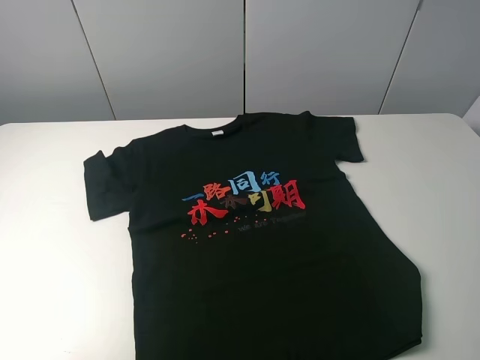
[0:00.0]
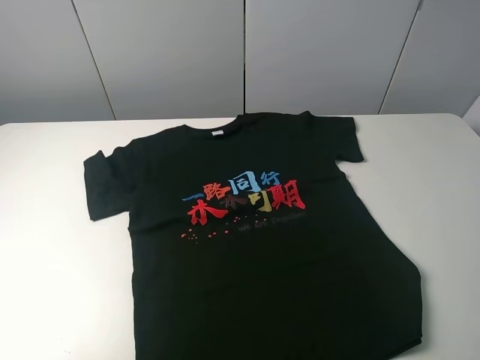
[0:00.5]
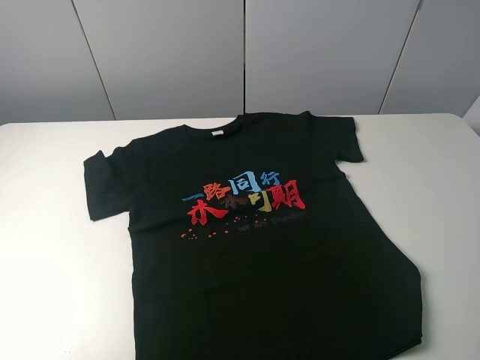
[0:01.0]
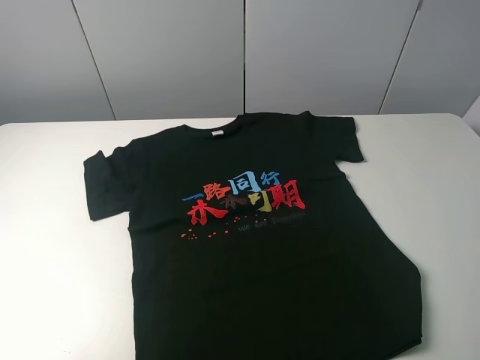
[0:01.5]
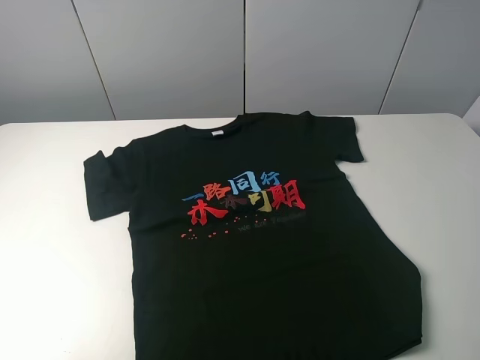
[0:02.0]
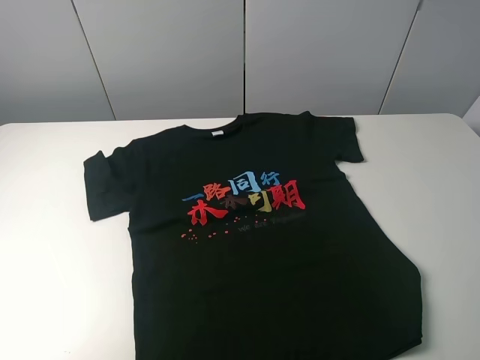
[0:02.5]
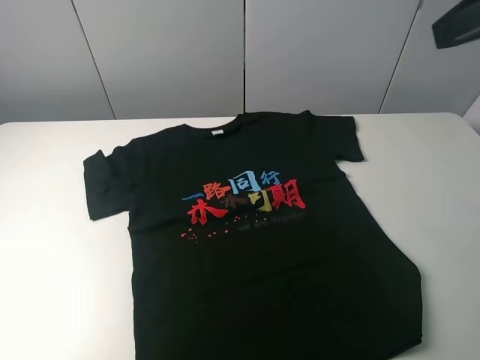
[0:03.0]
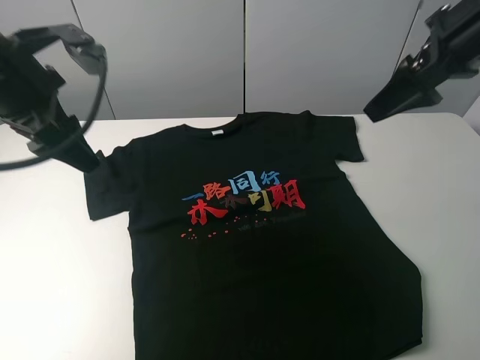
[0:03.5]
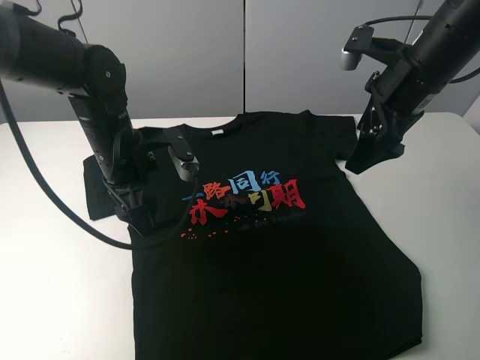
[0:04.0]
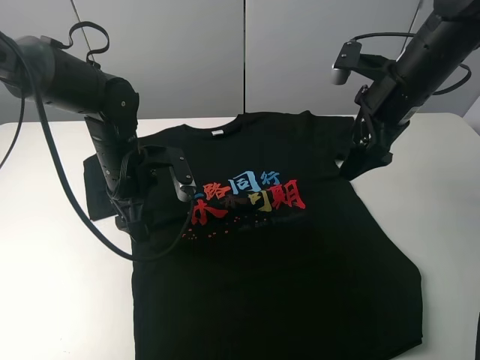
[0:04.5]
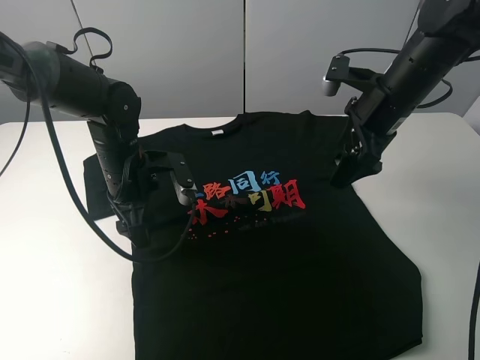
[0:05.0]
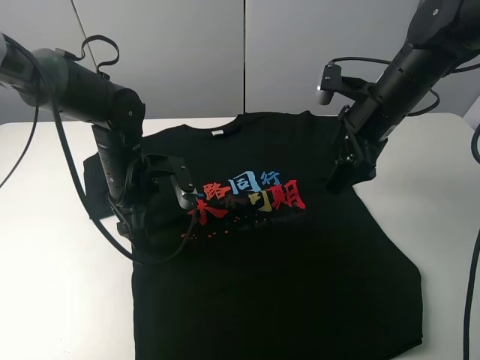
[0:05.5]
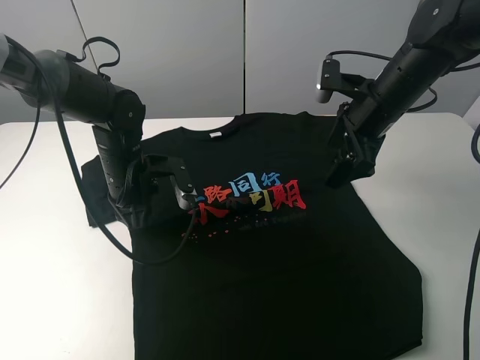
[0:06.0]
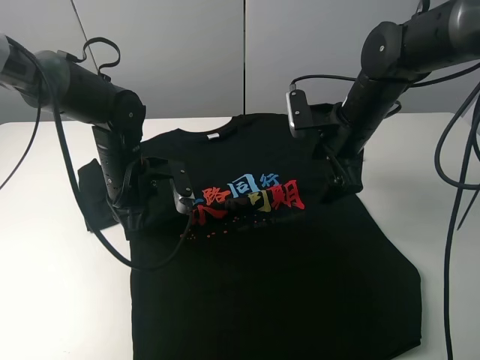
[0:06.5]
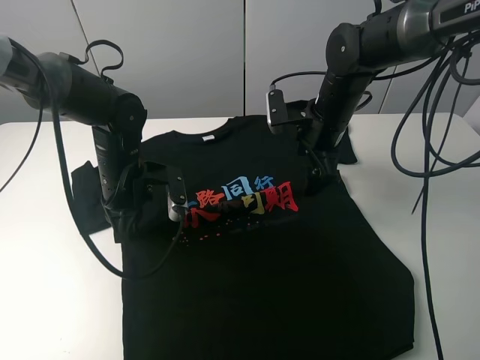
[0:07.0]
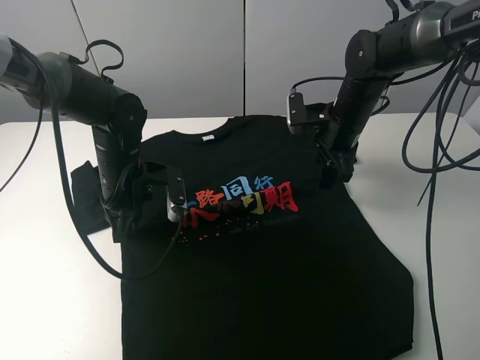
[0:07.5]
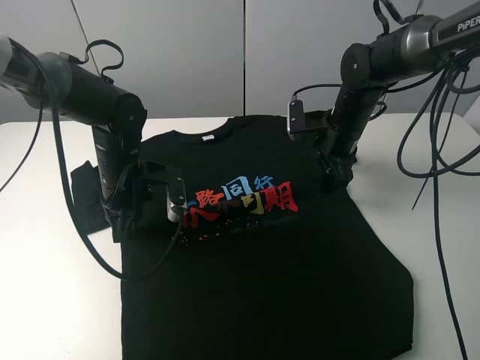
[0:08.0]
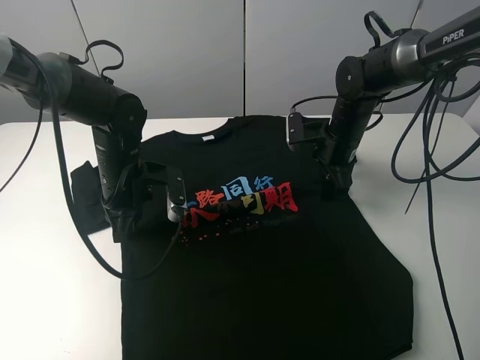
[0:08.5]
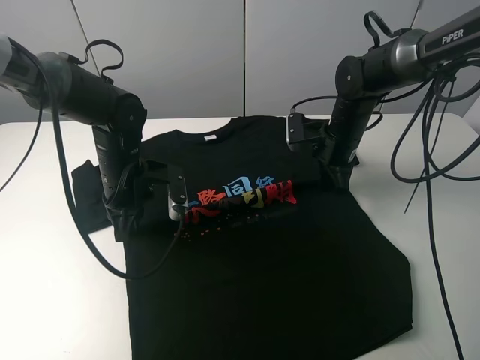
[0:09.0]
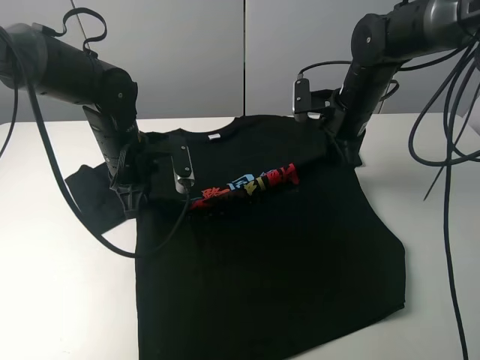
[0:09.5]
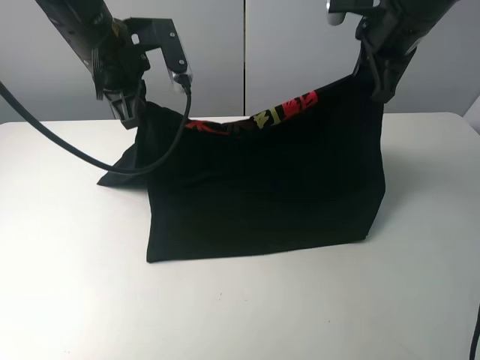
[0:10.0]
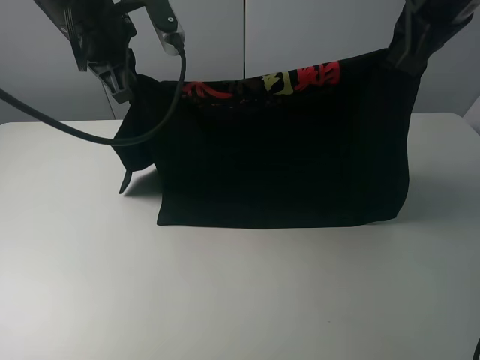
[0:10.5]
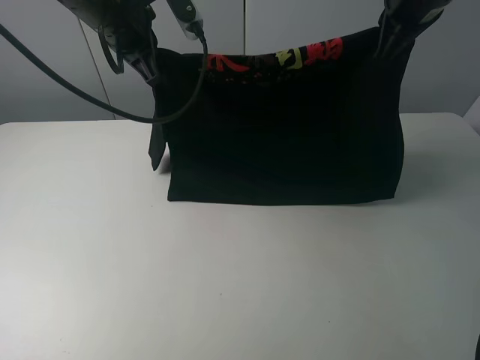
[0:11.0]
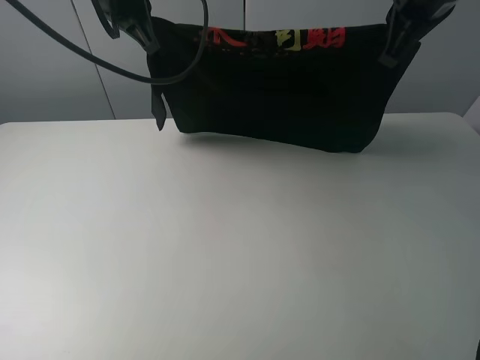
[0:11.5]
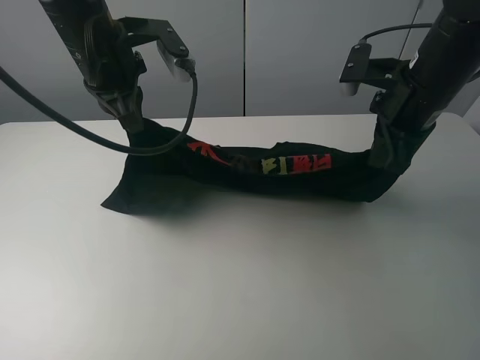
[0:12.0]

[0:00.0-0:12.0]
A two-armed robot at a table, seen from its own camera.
Task of the whole recording: fold the clothes on the table.
Step, 0:00.0 to 0:08.5: Lift the black T-shirt with the left gripper.
0:00.0 to 0:02.0: The two grippers keep their place.
0:02.0 to 0:04.0: The right gripper travels forward by approximately 30 cm. The left gripper goes some 40 cm forward, to the right and downward.
0:04.0 to 0:06.0: The right gripper moves downward, roughly 5 cm. The left gripper closes up.
0:06.0 to 0:08.0: The right gripper moves downward, about 10 cm.
0:08.0 to 0:10.0: Both grippers move upward, some 20 cm. The right gripper closes up.
0:10.0 to 0:12.0: The right gripper heads downward and backward, covering about 10 cm.

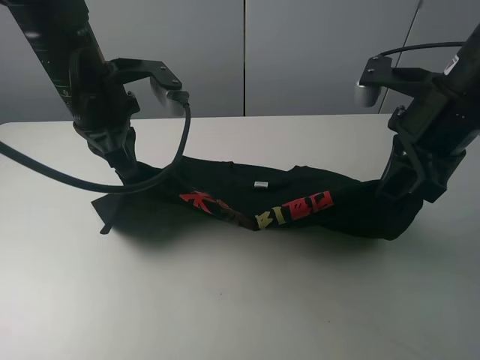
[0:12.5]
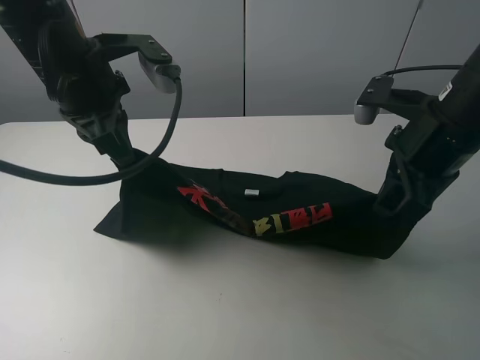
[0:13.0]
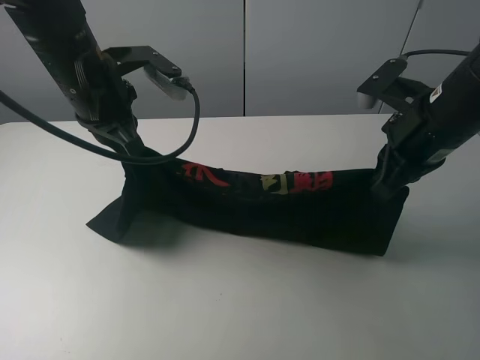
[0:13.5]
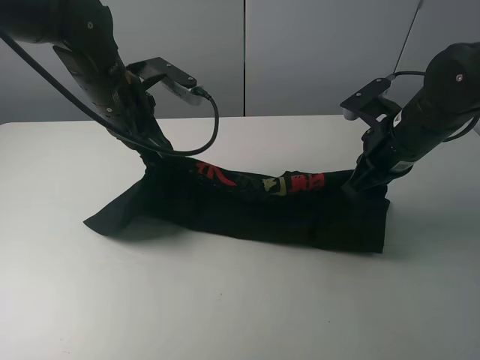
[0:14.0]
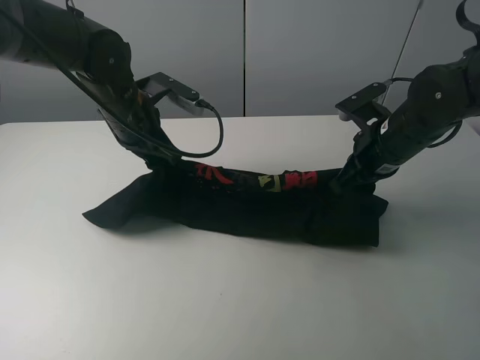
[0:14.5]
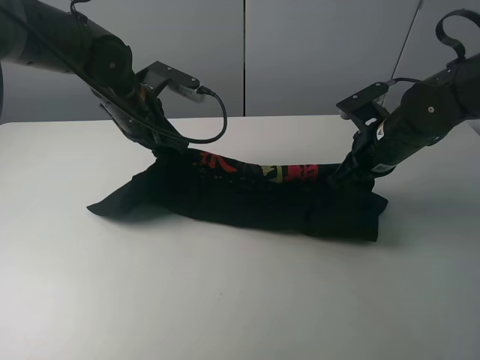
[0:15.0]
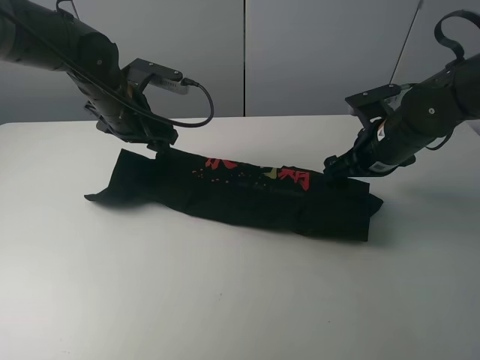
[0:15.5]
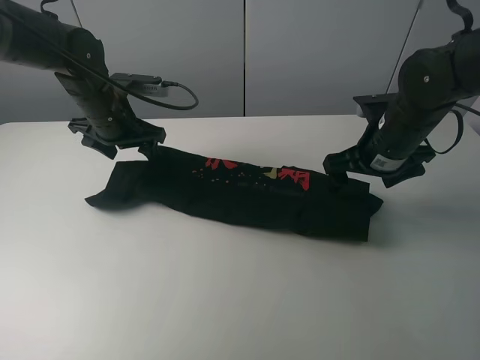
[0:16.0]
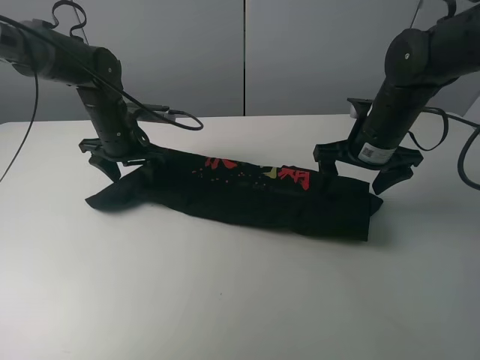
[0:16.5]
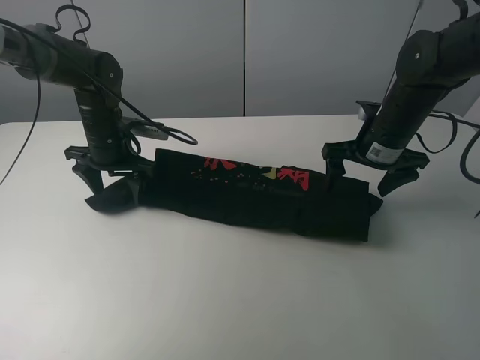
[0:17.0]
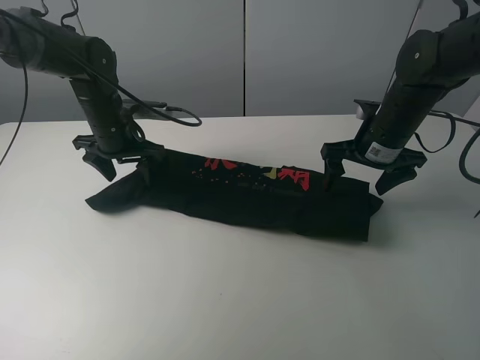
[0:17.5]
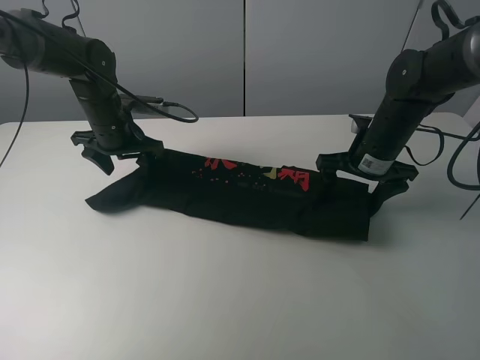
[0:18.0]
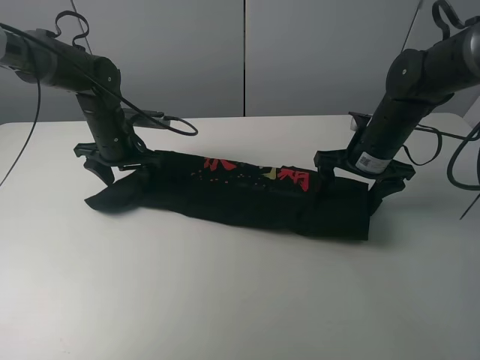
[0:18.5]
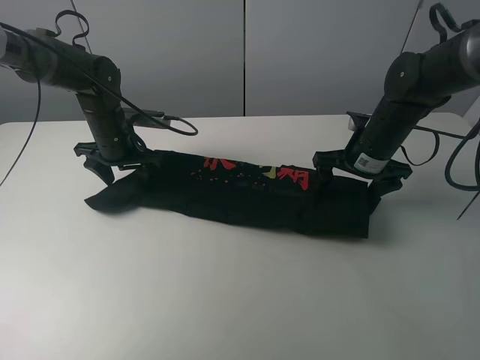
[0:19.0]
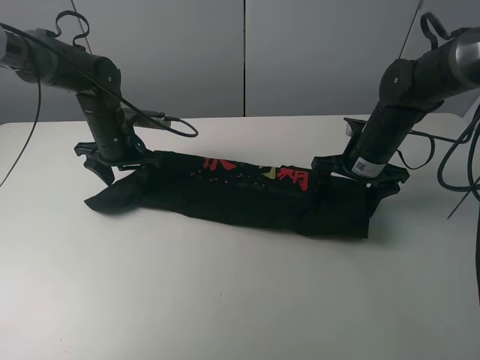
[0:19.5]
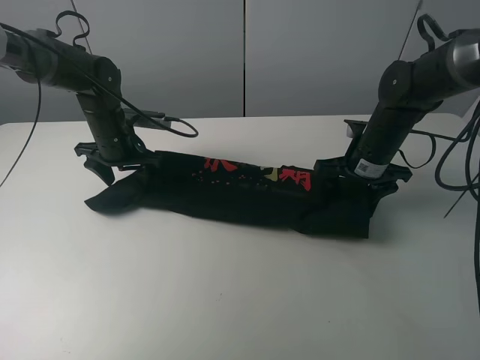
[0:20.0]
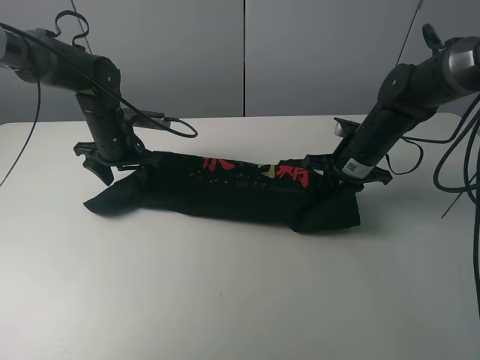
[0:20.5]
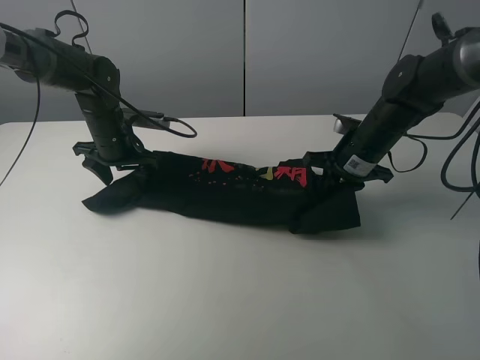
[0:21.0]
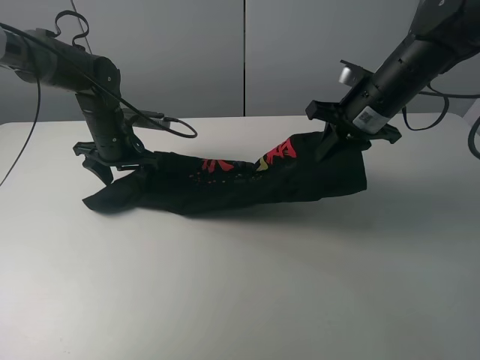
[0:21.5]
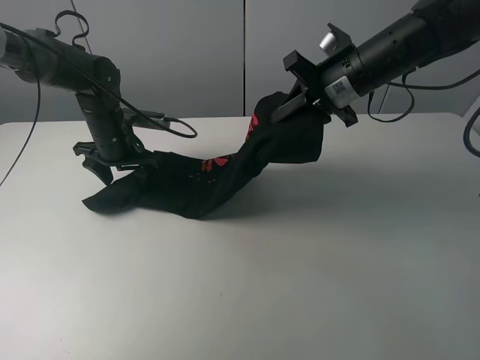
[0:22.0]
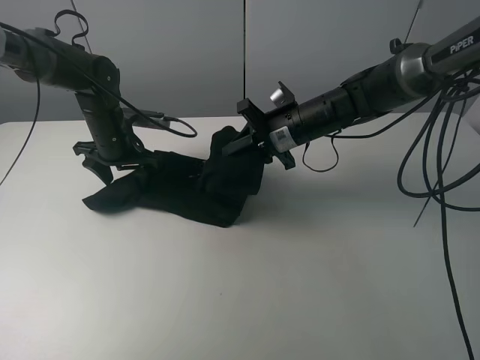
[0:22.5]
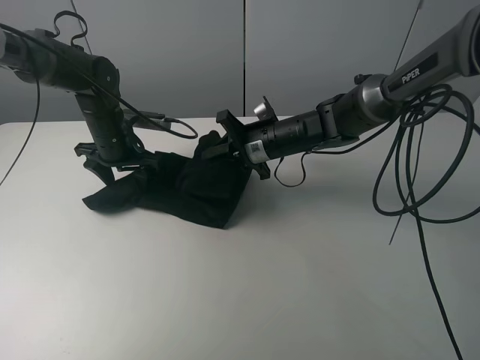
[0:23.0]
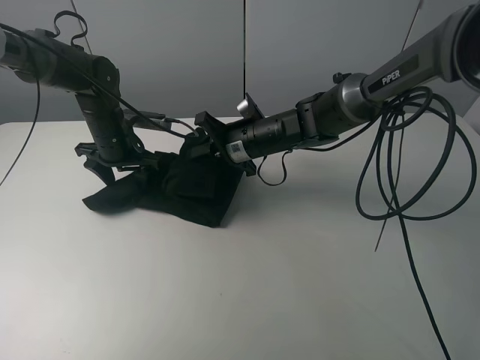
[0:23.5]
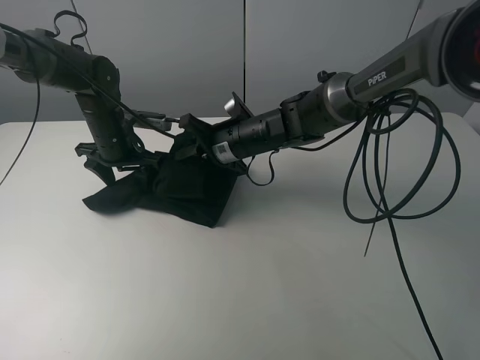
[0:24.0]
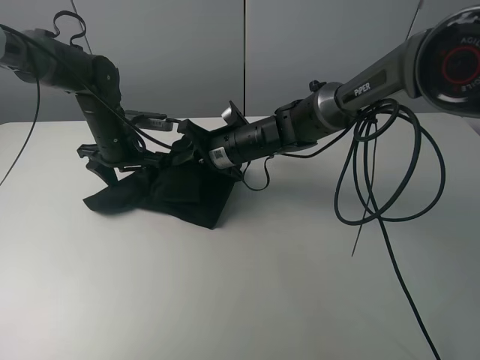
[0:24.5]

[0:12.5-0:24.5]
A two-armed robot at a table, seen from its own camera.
Task of the whole recording: fold the clothes on the table.
Step, 0:12.5 to 0:15.5: Fold the black T-shirt downward with the left gripper.
Step, 0:16.0 to 0:20.0: Grasp the black T-shirt with the right gripper.
0:12.5 to 0:14.5: Both grippers travel together downward and forward, about 10 cm.
0:14.5 to 0:16.5: The right gripper opens. The left gripper travels downward by roughly 5 cm, and opens up.
0:16.5 to 0:18.5: The grippers make only small movements.
0:18.5 to 0:20.5: The right gripper closes up.
0:20.5 to 0:22.5: The right gripper travels to the left by roughly 10 cm, and goes upward and returns, roughly 15 cm each way.
0:22.5 to 0:24.5: The right gripper goes about 10 cm to the left.

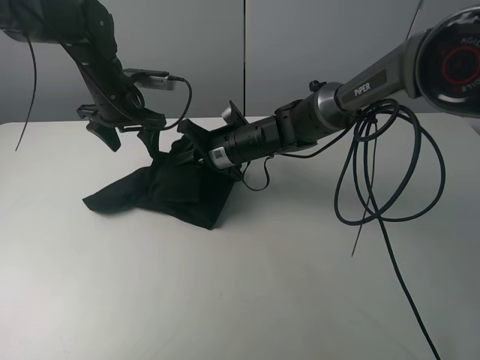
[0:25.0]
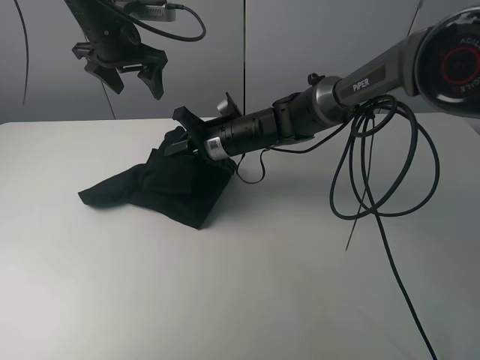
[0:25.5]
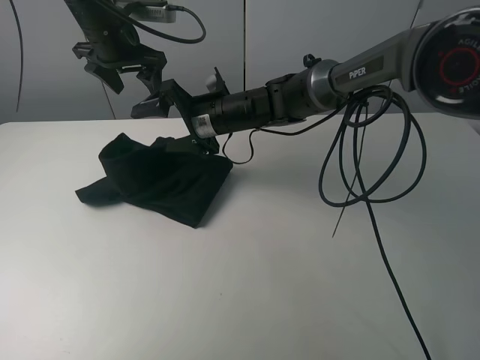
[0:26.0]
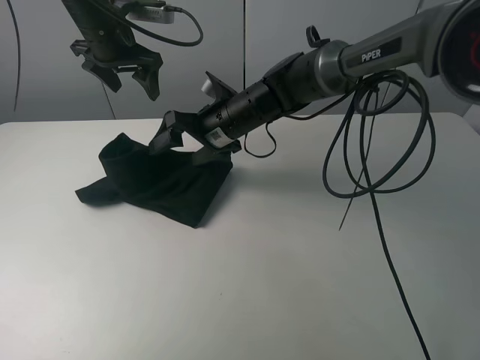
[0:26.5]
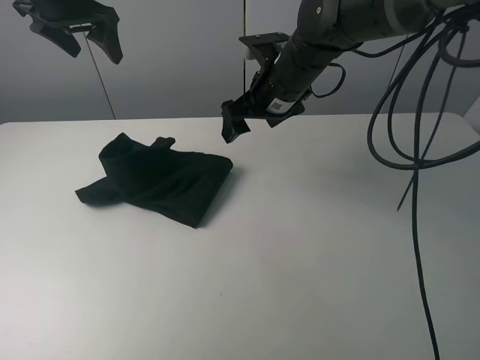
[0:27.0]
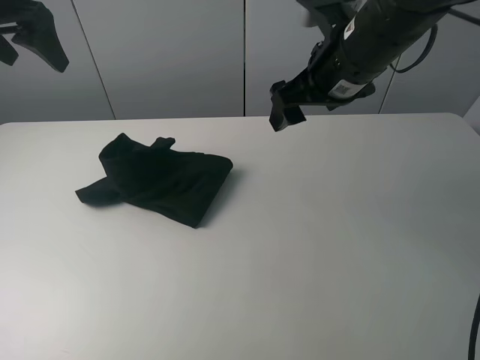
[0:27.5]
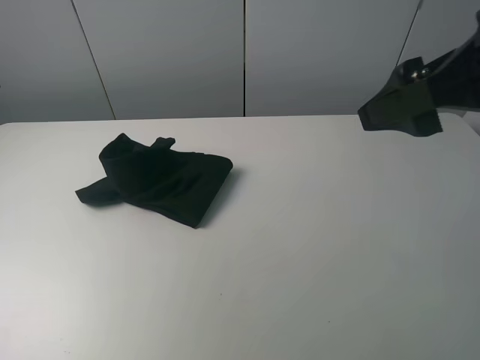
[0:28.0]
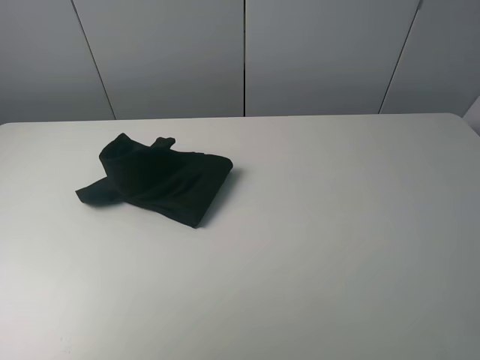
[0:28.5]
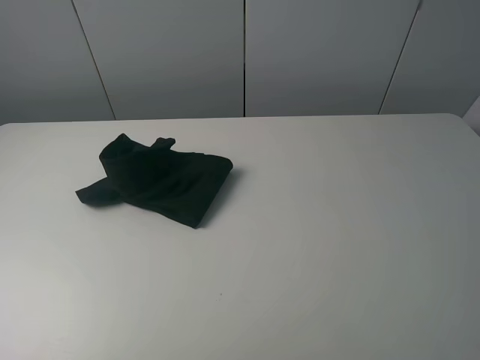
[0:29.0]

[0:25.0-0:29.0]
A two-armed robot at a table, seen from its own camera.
Task of the whole recording: fold the clothes on the table.
0:25.0 to 0:27.0: The left gripper moves upward, approximately 15 cm. The right gripper heads upward and to the right, covering roughly 15 cm, and opens.
0:27.0 to 0:29.0: The left gripper shifts some 50 cm backward. The right gripper is displaced backward and to the right by approximately 40 cm.
